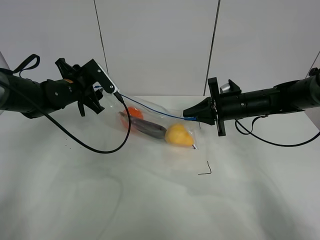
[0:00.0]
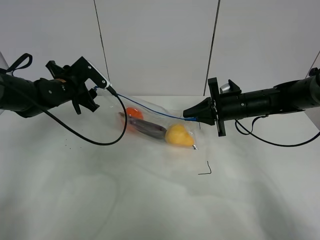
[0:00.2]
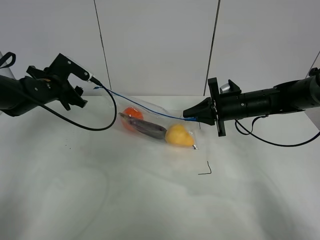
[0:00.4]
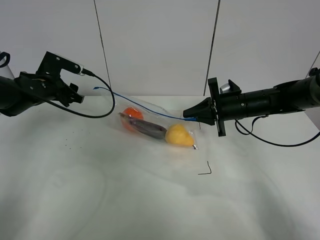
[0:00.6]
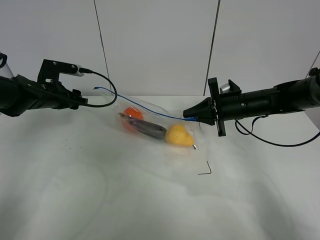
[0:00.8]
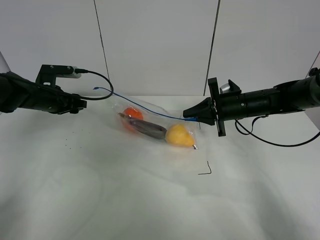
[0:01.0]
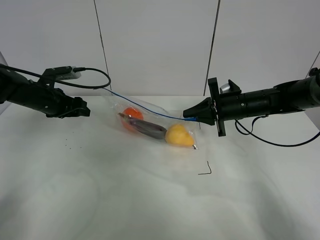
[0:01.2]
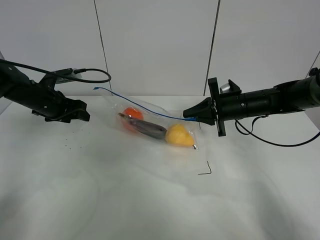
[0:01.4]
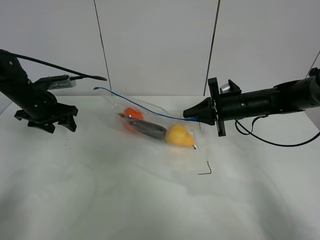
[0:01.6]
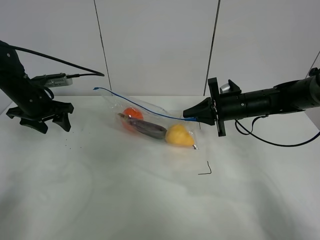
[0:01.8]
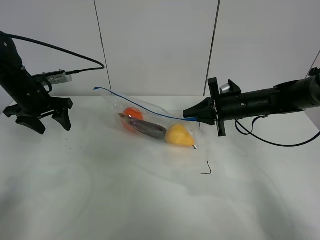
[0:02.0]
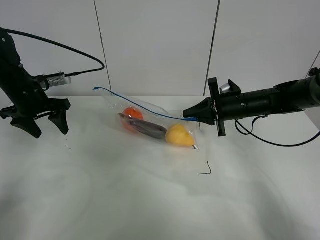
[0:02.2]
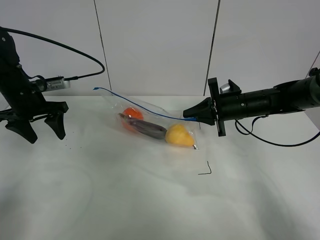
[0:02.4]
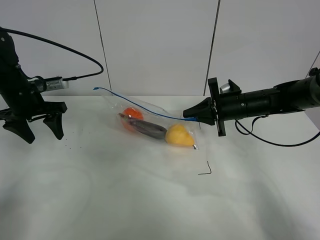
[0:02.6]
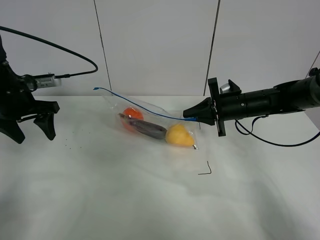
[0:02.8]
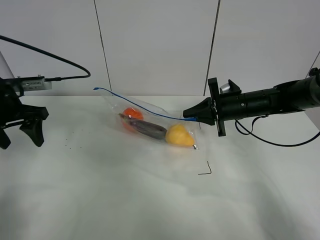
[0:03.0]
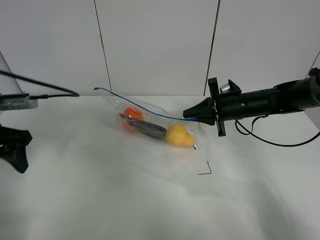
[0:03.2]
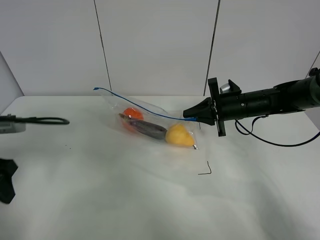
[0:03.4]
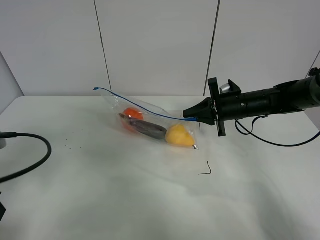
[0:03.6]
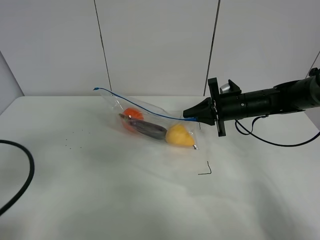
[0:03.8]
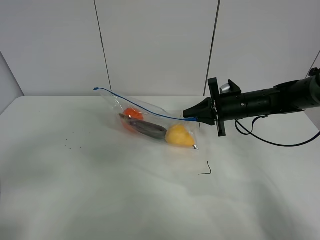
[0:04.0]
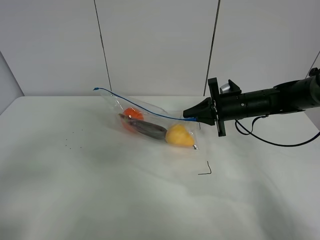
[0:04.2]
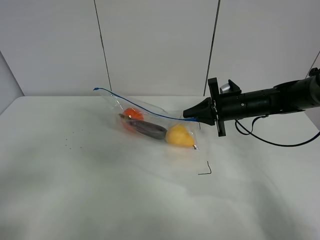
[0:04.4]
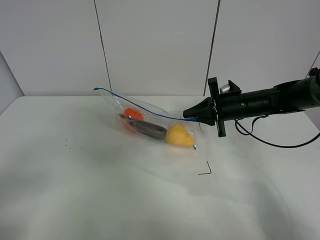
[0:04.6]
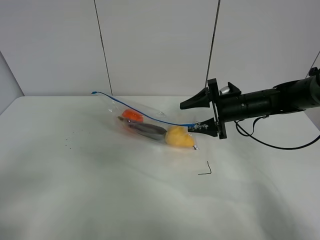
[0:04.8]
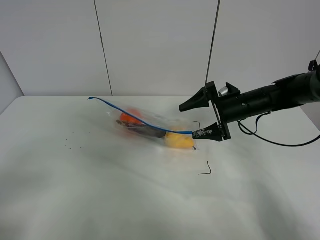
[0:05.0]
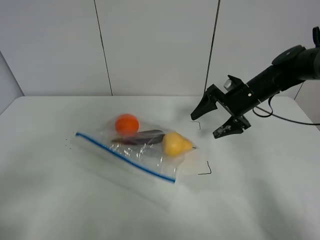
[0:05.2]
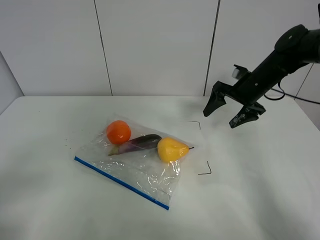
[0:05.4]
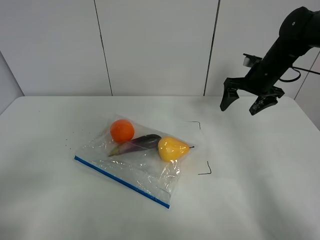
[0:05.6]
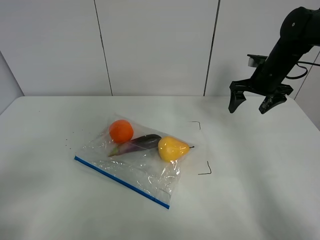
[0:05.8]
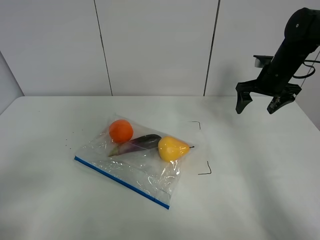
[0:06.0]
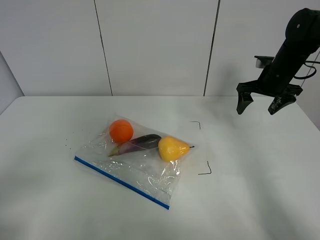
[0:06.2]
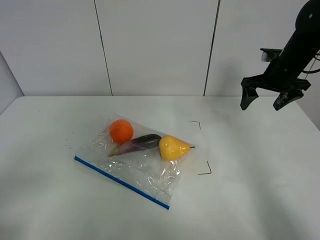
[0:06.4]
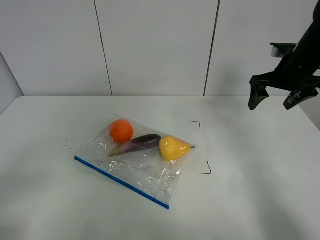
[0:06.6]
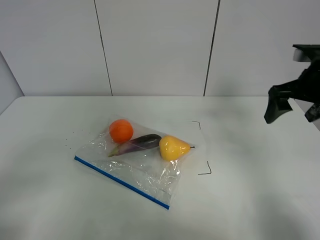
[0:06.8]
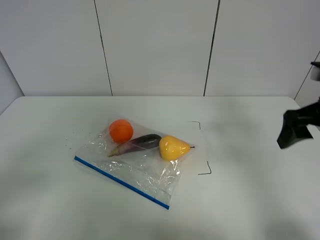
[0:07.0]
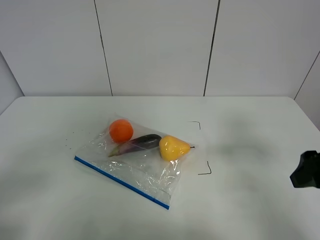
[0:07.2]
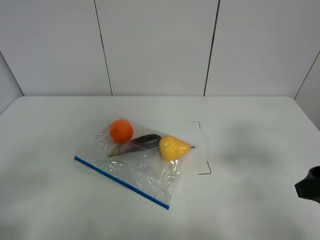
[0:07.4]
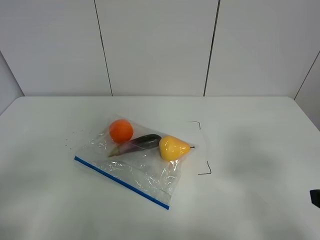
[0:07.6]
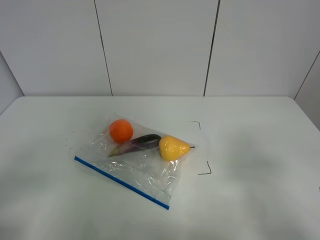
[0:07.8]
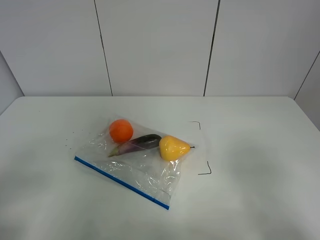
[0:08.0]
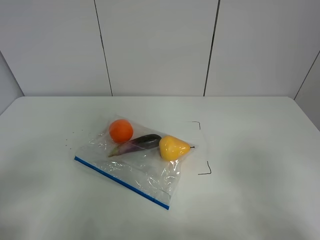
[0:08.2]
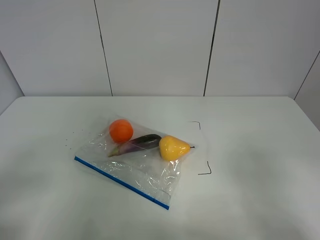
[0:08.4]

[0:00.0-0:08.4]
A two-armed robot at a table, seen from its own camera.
0:00.0 to 0:01.4: The left gripper shifts about 10 cm to the left.
0:01.4 to 0:02.8: The left gripper shifts approximately 5 cm upward.
0:02.8 to 0:04.2: The left gripper travels backward by some 30 cm.
0:04.2 to 0:05.6: The right gripper goes approximately 10 cm upward, to the right and forward, and opens its fingers.
0:05.6 to 0:07.0: The right gripper goes some 20 cm backward.
0:07.0 to 0:08.4: The right gripper shifts approximately 20 cm backward.

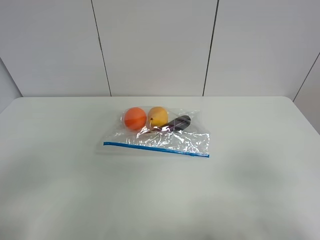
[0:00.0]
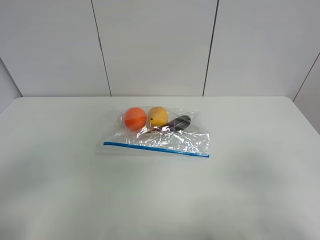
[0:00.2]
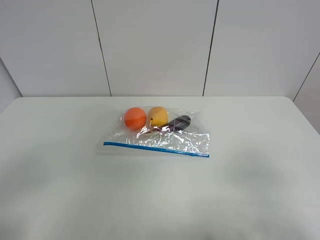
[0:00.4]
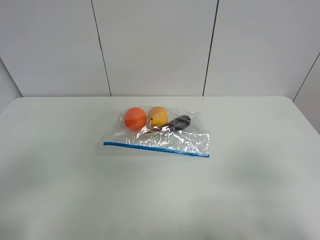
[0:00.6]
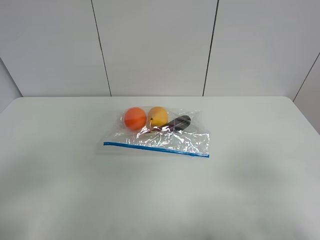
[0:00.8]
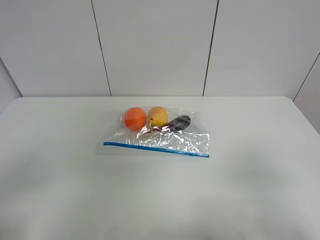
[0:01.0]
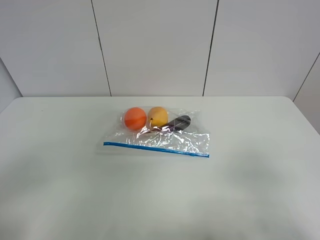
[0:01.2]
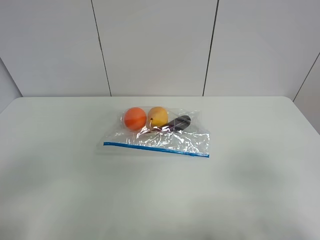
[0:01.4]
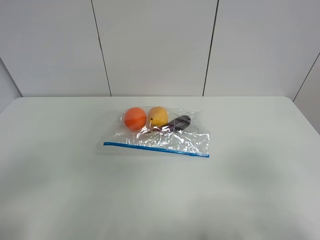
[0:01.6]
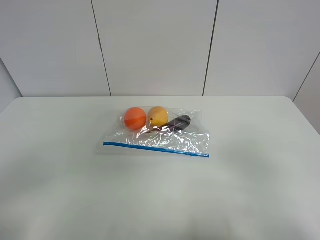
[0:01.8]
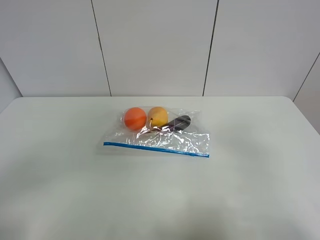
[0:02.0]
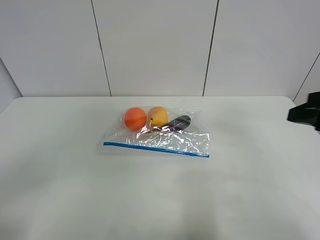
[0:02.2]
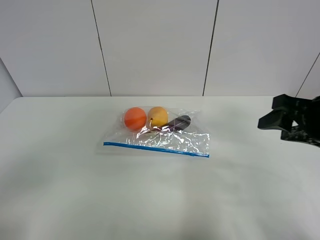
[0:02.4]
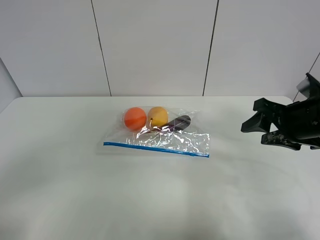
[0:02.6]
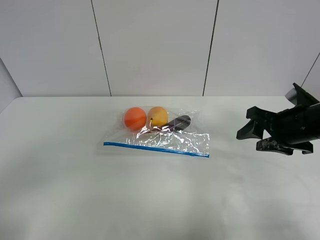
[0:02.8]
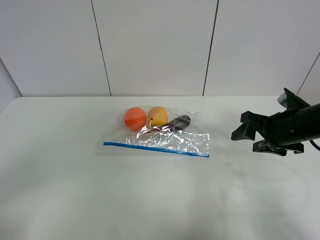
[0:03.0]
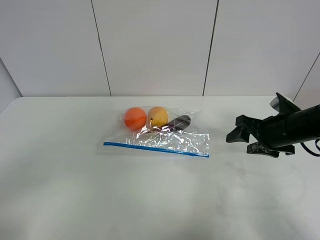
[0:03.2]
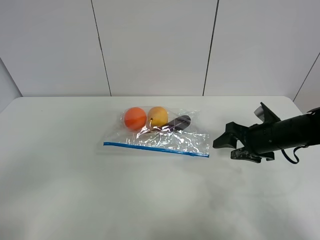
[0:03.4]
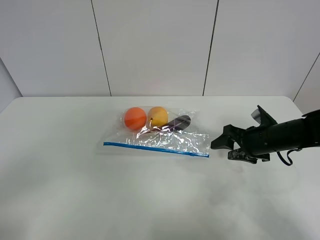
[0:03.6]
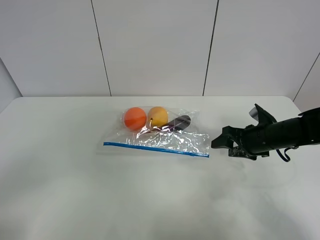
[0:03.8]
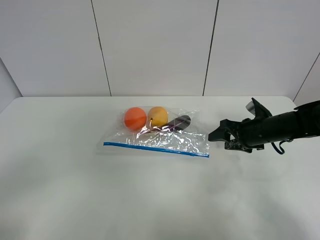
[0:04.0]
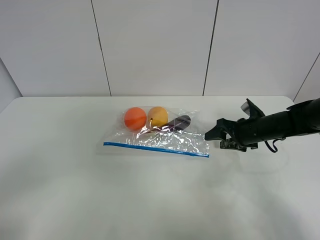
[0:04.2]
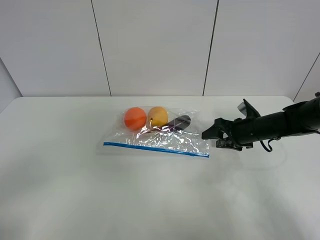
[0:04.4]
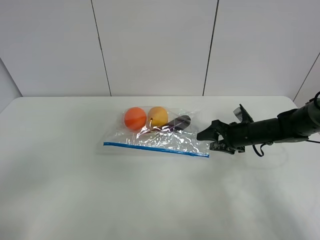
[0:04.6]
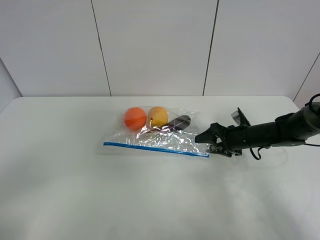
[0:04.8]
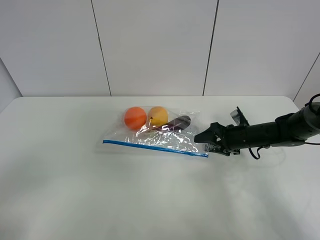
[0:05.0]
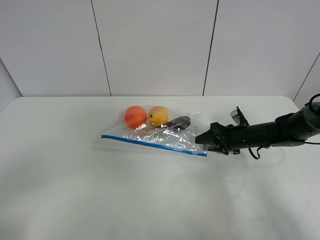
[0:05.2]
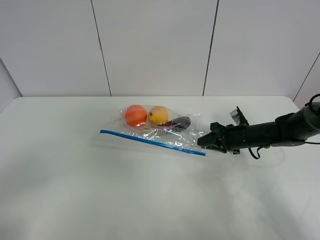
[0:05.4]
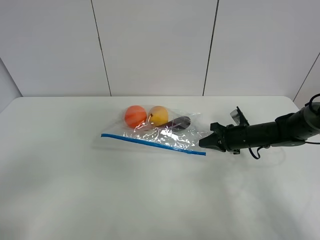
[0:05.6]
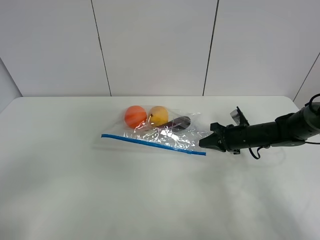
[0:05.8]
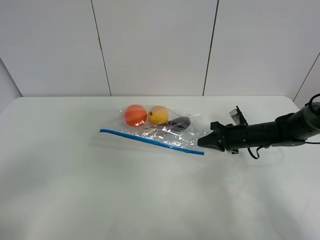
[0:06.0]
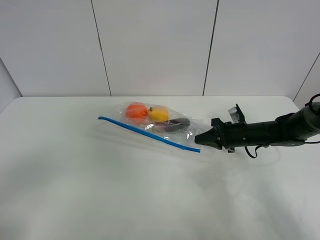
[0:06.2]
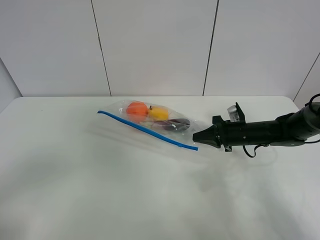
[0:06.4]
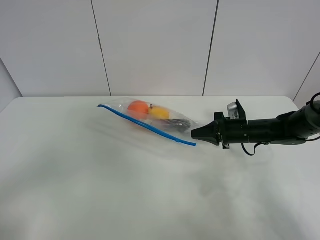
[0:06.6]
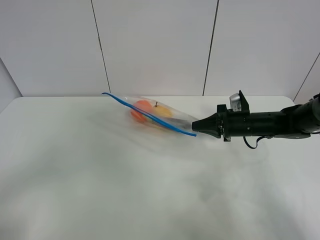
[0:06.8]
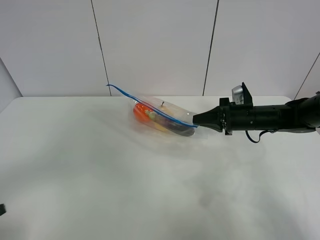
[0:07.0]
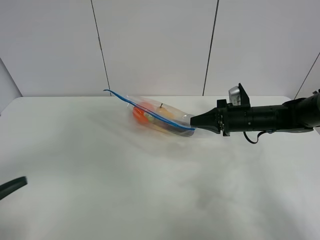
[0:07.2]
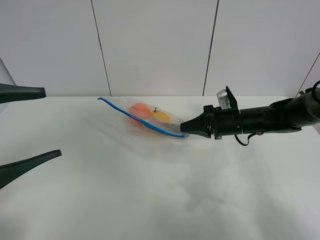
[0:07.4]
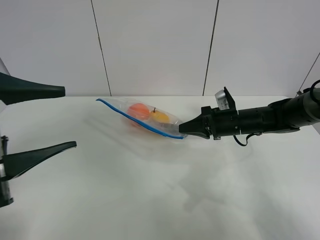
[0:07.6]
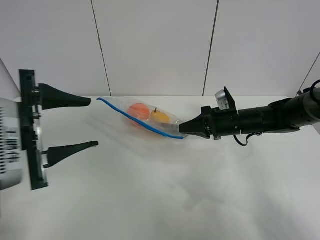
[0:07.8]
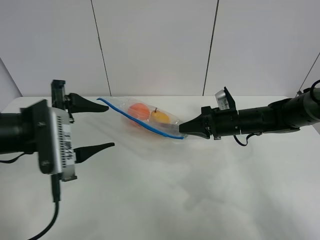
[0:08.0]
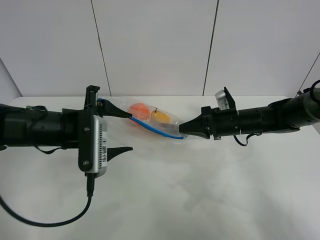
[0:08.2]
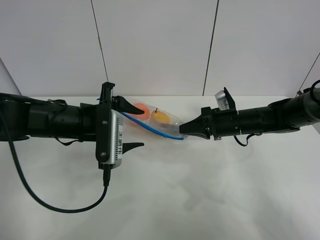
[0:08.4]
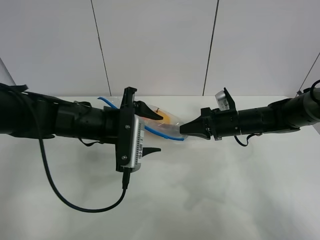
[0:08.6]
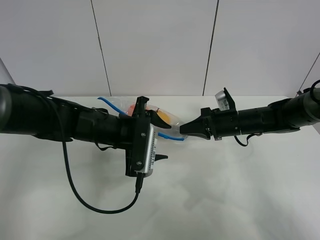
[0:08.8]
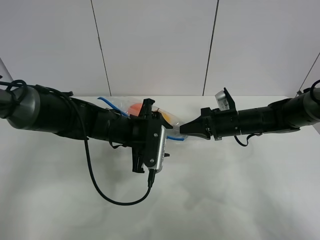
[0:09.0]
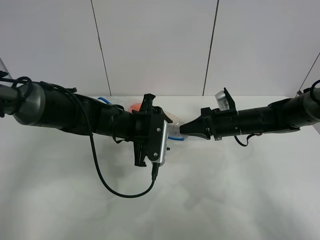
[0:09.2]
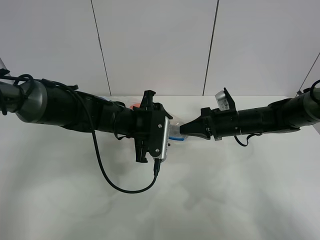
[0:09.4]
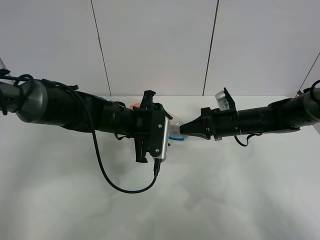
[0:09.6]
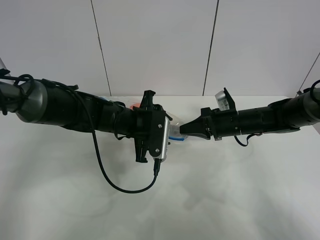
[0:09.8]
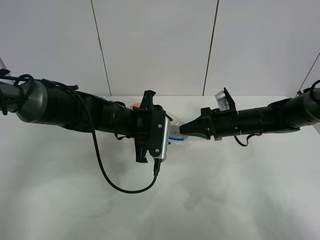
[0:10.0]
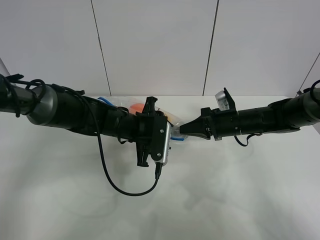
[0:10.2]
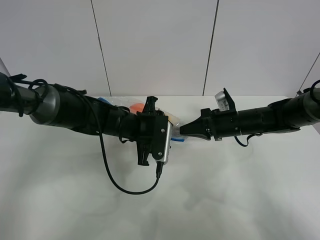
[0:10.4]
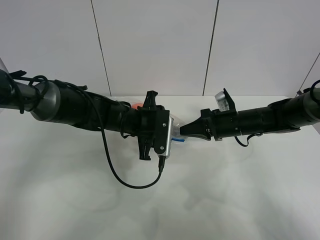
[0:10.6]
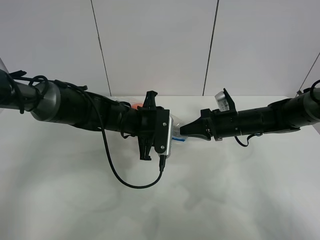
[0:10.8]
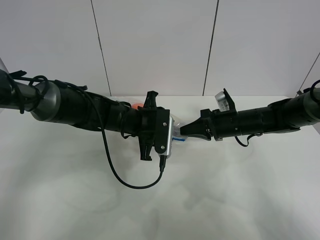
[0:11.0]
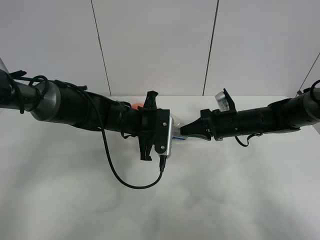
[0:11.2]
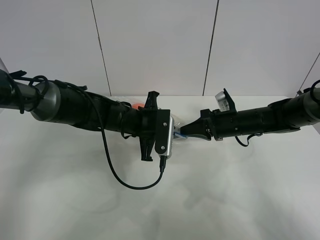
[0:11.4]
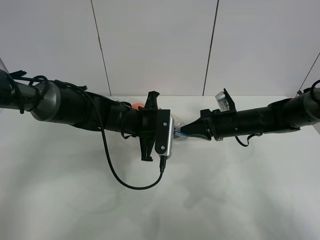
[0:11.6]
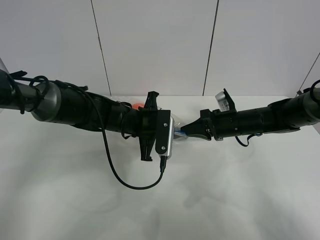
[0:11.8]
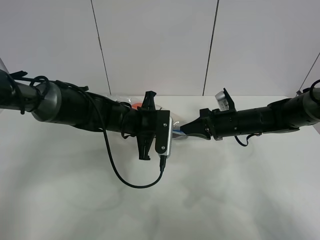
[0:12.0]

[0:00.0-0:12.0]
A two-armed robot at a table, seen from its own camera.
Step, 0:00.0 to 0:05.6: Grasp the fruit bag with right gripper.
Step, 0:05.8 to 0:06.8: Lift the fruit bag with your right gripper.
0:01.6 to 0:03.0: The right gripper goes some 25 cm forward.
0:03.0 to 0:04.4: The right gripper heads downward and forward, covering about 15 cm.
0:04.4 to 0:06.0: The right gripper closes its fingers.
0:06.0 to 0:07.6: The right gripper is displaced upward by approximately 5 cm; the left gripper is displaced forward by approximately 15 cm, and opens its fingers.
0:07.6 to 0:09.0: The left gripper is displaced forward, to the right and downward by approximately 25 cm.
0:09.0 to 0:10.4: The grippers make only small movements.
0:10.4 to 0:12.0: The left gripper closes.

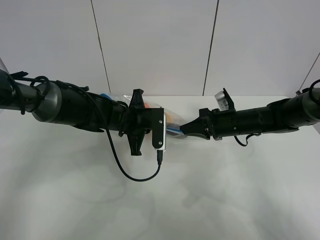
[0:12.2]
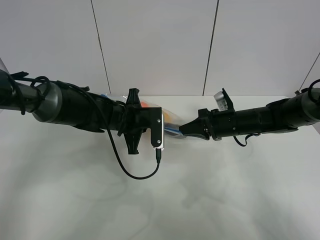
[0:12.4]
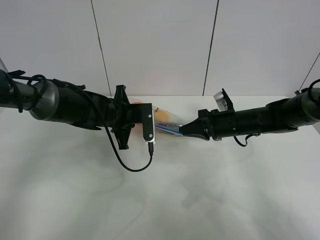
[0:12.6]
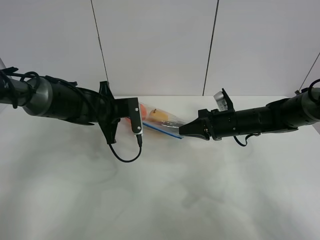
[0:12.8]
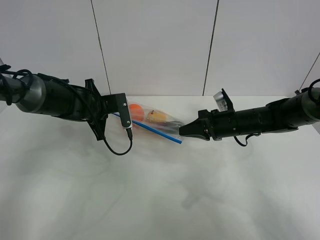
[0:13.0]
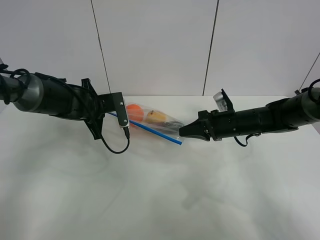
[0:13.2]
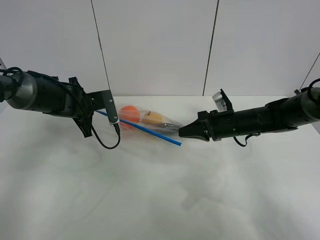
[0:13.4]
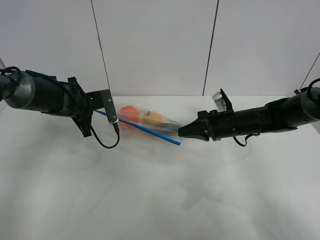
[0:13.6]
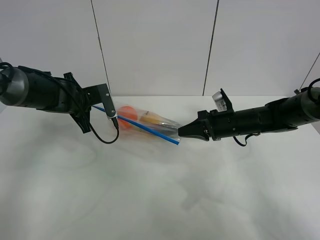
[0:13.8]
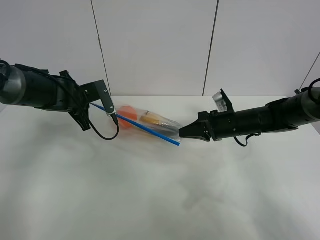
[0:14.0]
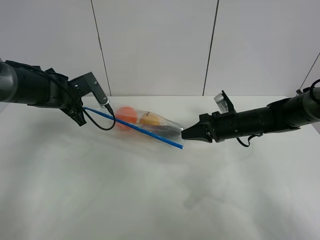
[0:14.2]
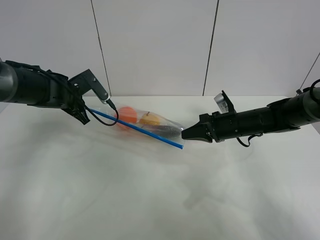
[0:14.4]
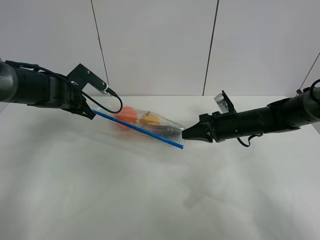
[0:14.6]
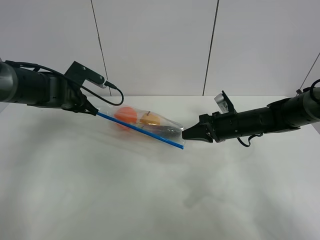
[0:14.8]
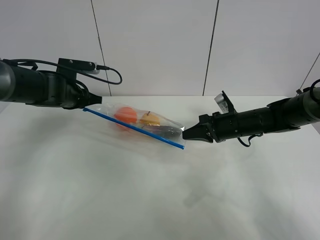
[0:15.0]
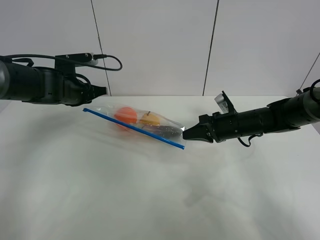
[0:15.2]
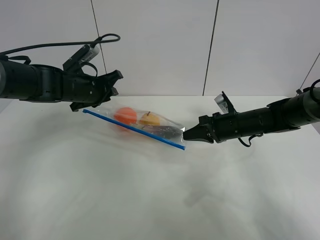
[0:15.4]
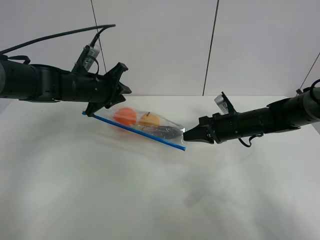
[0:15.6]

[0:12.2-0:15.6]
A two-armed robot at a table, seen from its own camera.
Step, 0:12.2 to 0:15.2: Pull the fruit bag with left gripper.
0:12.2 to 0:13.8: The left gripper is displaced to the left by about 15 cm.
0:13.8 to 0:15.6: The left gripper goes about 5 cm to the right, and opens up.
